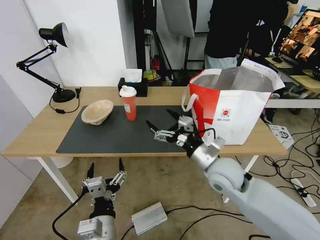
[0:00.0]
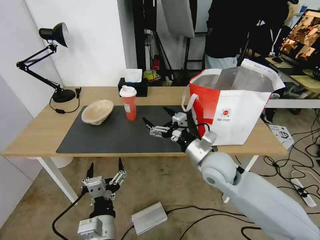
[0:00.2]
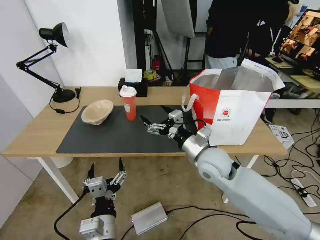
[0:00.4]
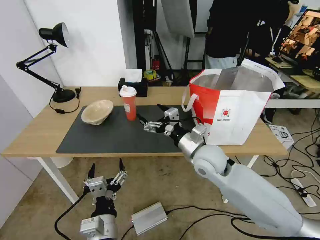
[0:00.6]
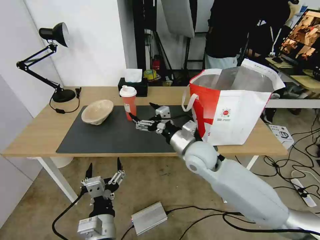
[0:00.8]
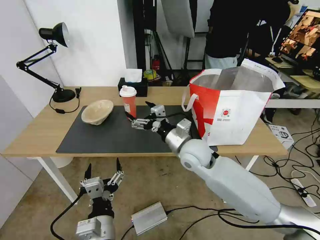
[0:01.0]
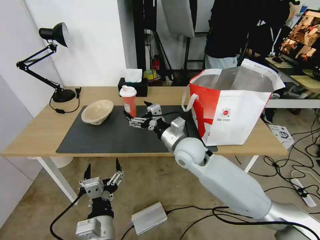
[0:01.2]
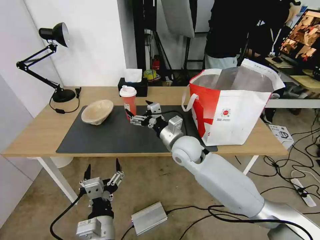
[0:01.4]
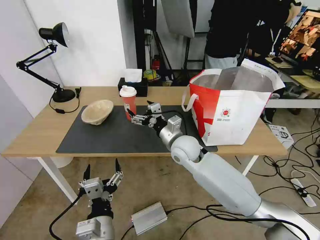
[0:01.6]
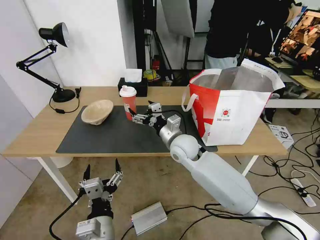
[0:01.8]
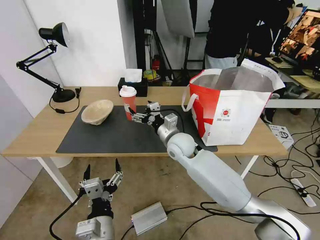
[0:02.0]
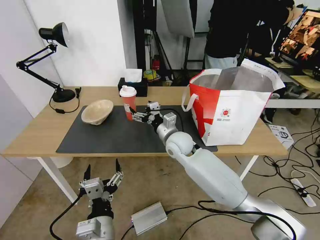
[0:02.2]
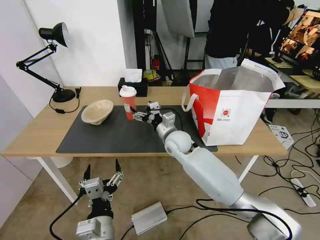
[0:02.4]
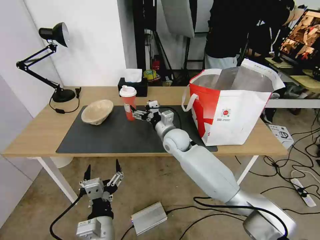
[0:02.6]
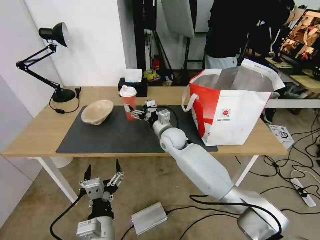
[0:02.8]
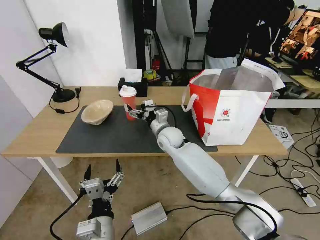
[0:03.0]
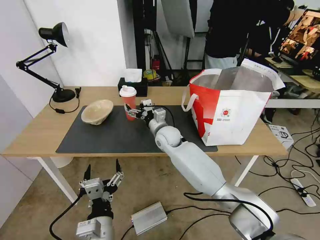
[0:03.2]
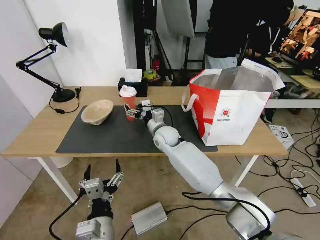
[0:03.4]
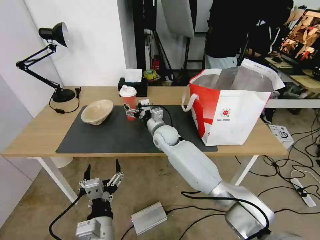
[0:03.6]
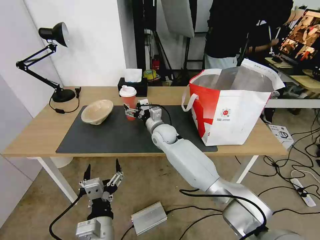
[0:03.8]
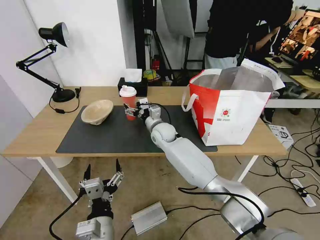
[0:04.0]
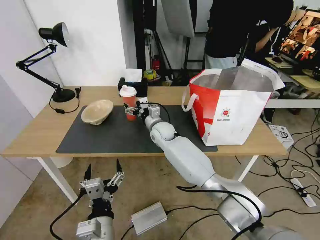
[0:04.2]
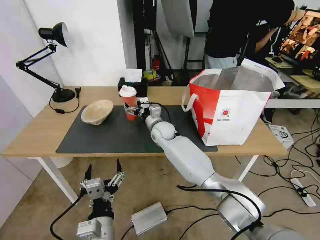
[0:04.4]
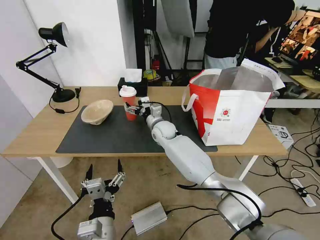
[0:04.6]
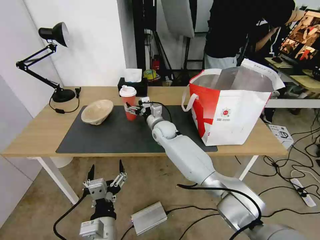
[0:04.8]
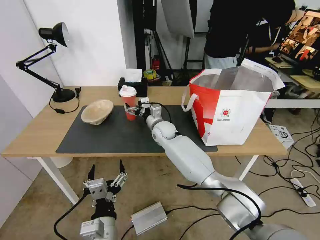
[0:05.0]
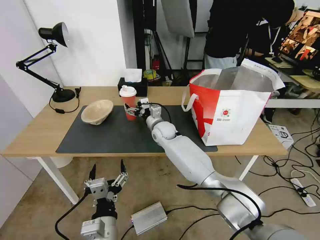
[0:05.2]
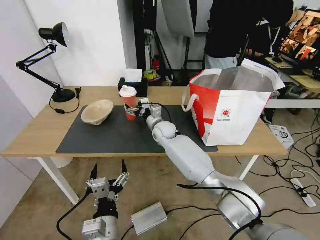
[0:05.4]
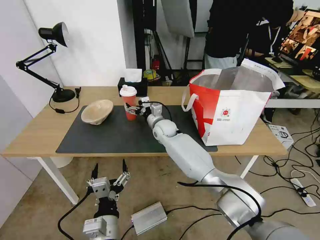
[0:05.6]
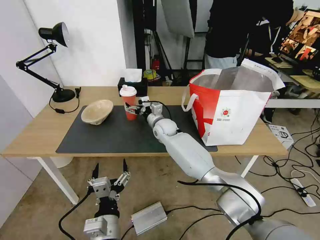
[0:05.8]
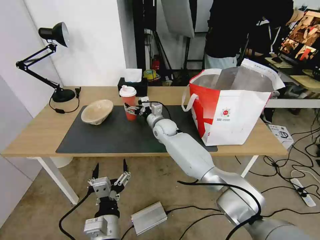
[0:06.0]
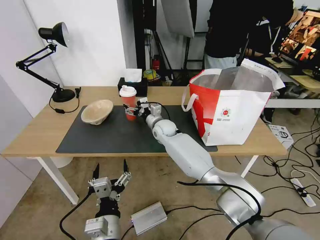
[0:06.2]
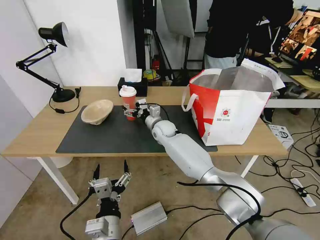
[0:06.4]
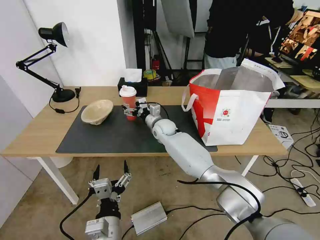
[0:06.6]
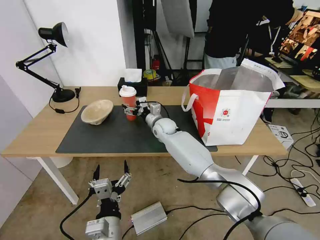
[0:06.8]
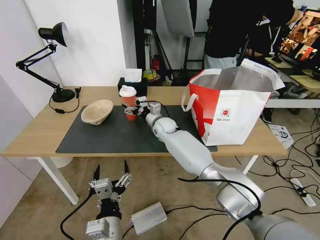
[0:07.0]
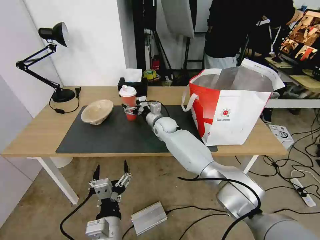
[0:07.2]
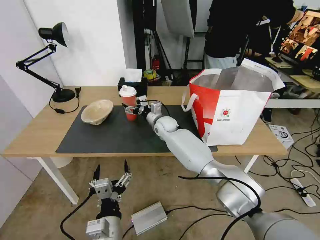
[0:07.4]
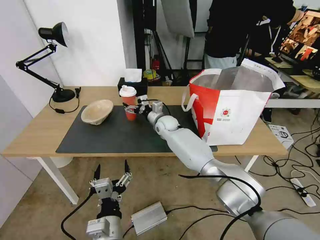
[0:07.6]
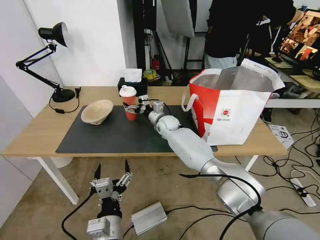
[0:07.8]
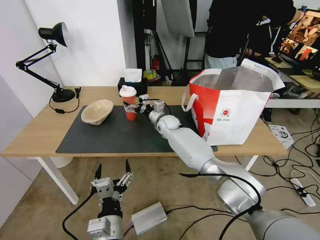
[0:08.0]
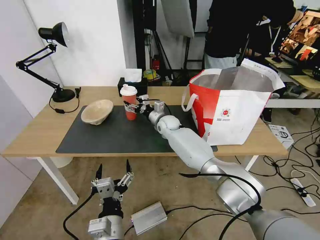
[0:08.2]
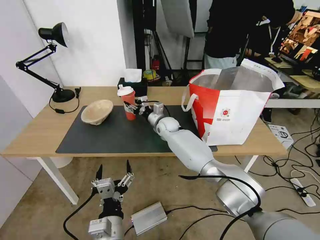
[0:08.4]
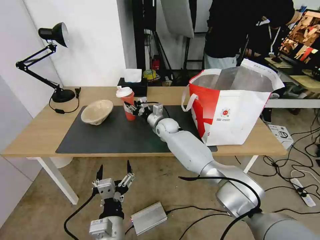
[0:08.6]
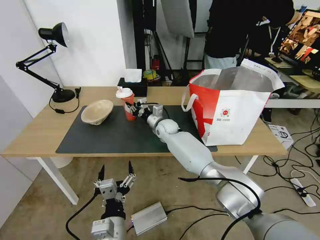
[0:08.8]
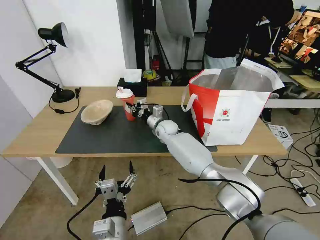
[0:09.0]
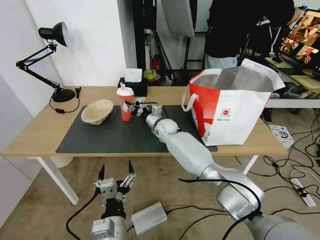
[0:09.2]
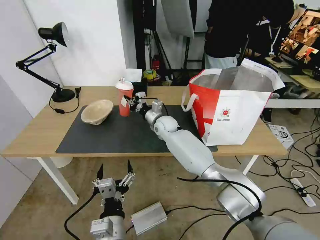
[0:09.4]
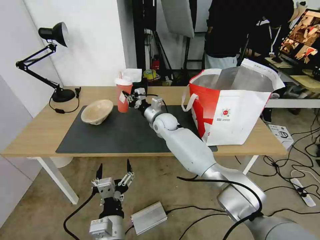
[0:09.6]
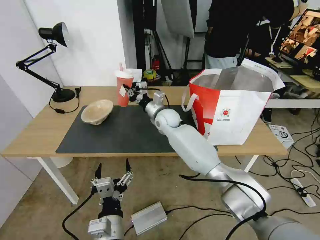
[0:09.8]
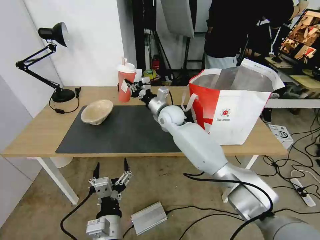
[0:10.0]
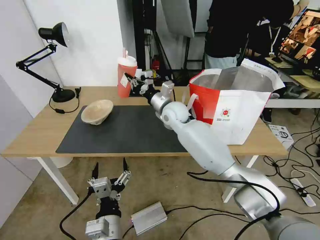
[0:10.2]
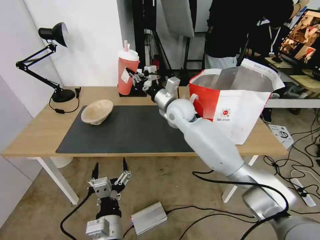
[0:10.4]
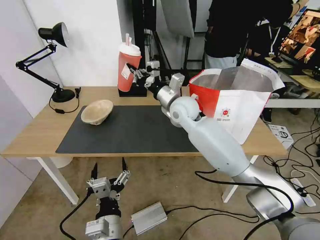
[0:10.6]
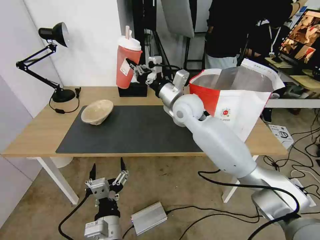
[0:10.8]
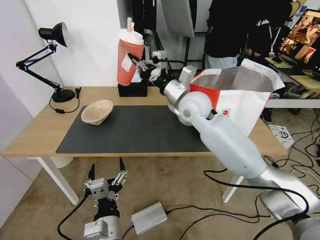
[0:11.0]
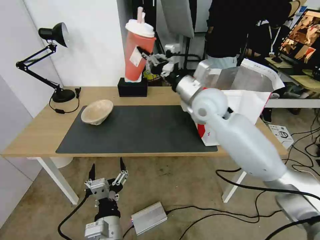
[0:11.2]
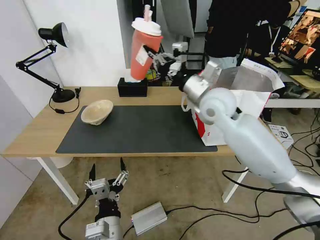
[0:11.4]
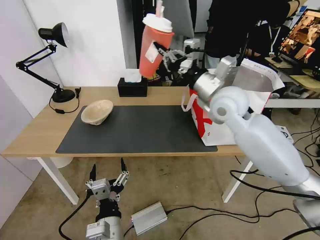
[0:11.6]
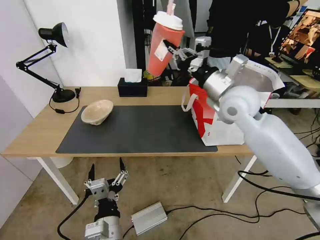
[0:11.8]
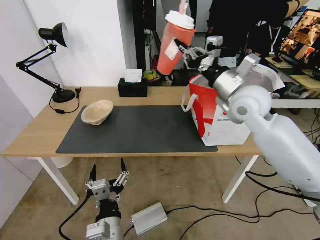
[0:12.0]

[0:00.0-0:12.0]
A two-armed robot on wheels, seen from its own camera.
Task of the whole recording: Pick up the trash from the table and place it into the takeout bag.
0:00.0 to 0:01.6: The right gripper heads to the left and forward, covering approximately 15 cm.
0:01.6 to 0:03.0: The right gripper goes roughly 10 cm forward.
0:03.0 to 0:04.4: The right gripper changes place by some 5 cm.
0:04.4 to 0:07.6: The grippers stay close to where they were, moving slightly.
0:07.6 to 0:09.0: The right gripper closes up.
0:09.0 to 0:10.4: The right gripper moves upward, some 15 cm.
0:10.4 to 0:12.0: The right gripper moves to the right, upward and backward, roughly 20 cm.

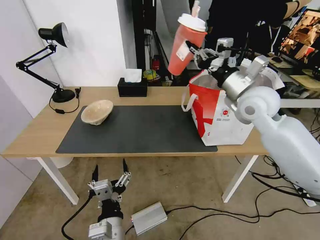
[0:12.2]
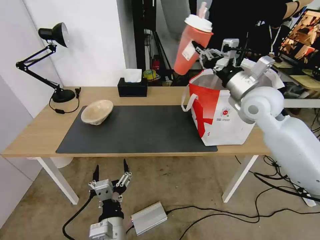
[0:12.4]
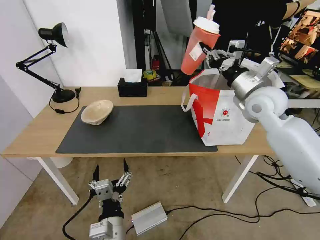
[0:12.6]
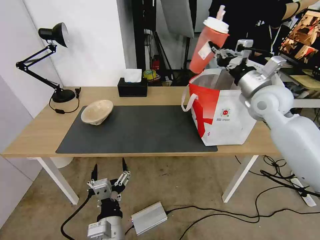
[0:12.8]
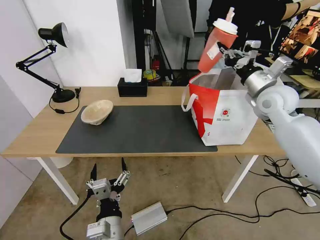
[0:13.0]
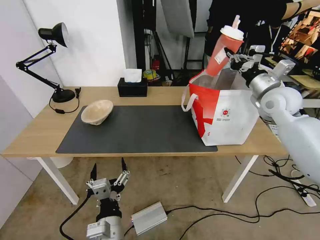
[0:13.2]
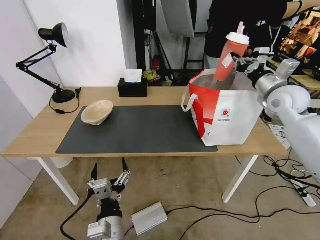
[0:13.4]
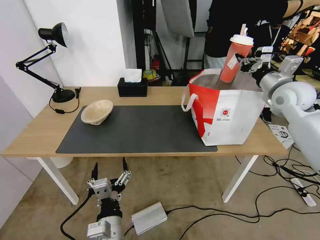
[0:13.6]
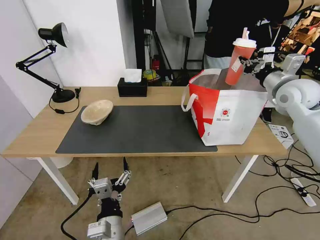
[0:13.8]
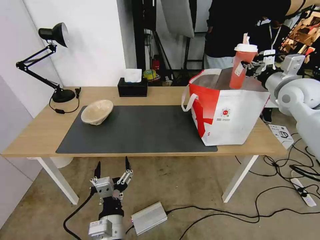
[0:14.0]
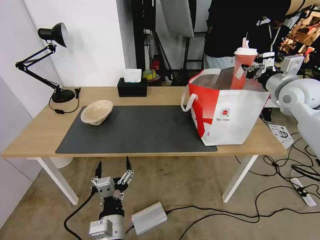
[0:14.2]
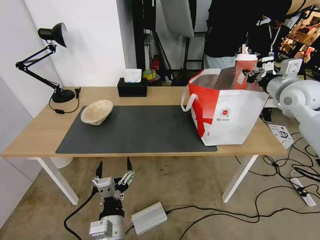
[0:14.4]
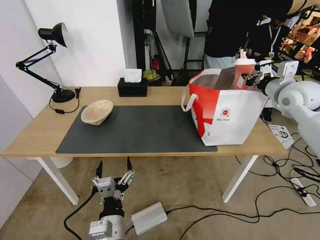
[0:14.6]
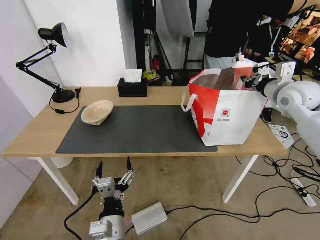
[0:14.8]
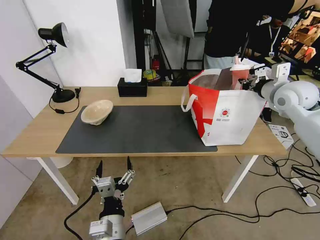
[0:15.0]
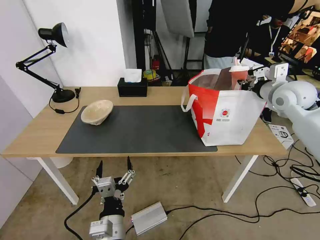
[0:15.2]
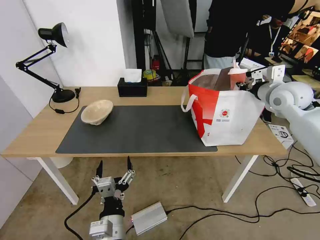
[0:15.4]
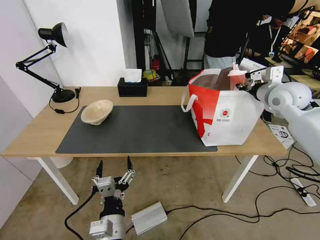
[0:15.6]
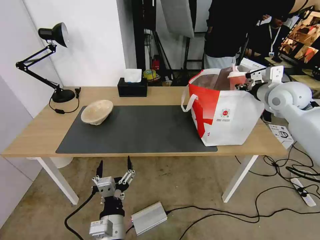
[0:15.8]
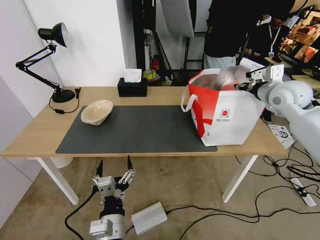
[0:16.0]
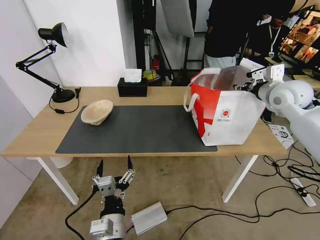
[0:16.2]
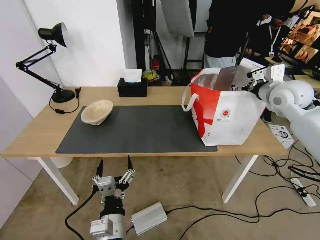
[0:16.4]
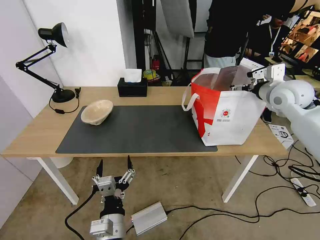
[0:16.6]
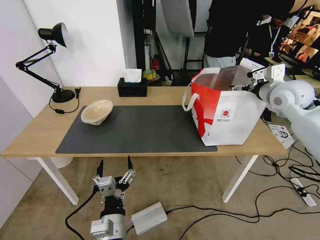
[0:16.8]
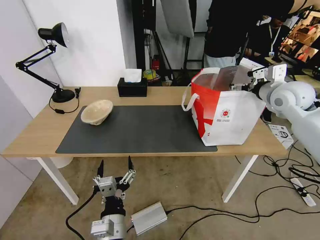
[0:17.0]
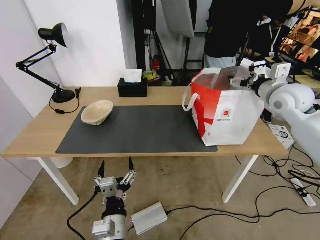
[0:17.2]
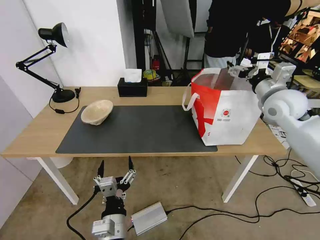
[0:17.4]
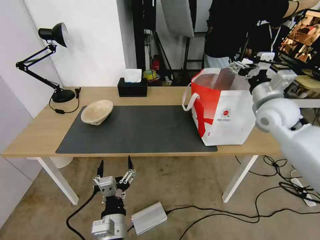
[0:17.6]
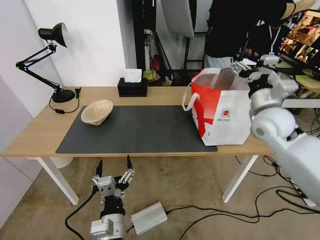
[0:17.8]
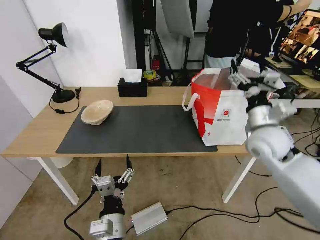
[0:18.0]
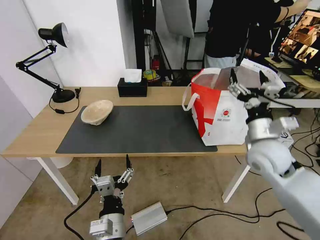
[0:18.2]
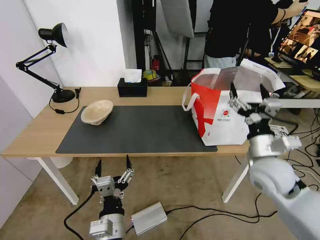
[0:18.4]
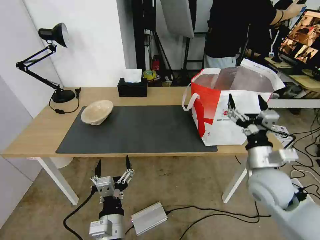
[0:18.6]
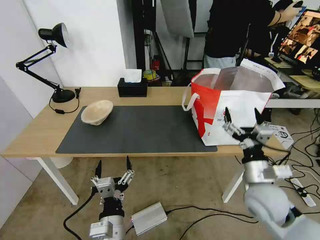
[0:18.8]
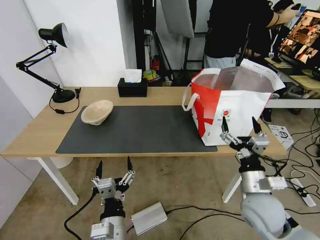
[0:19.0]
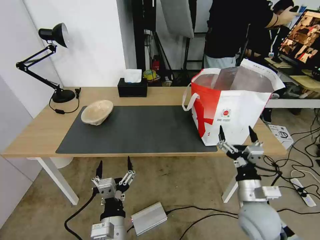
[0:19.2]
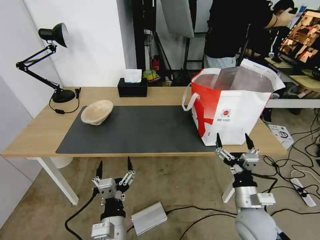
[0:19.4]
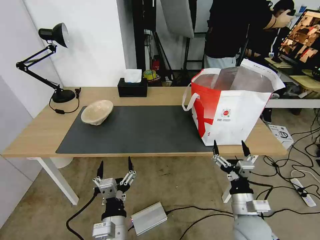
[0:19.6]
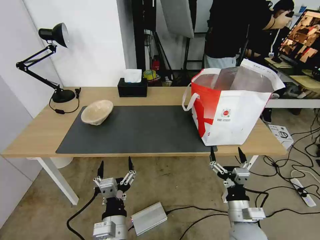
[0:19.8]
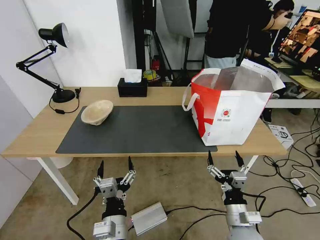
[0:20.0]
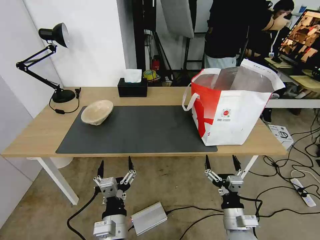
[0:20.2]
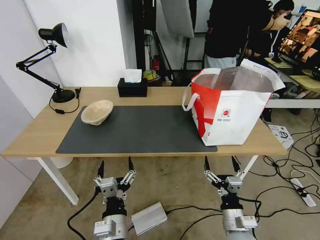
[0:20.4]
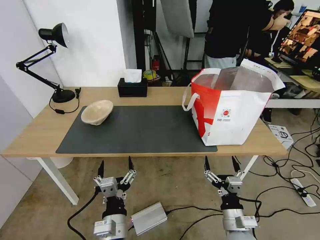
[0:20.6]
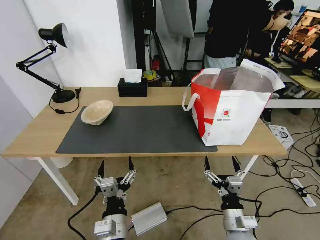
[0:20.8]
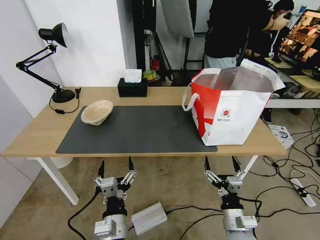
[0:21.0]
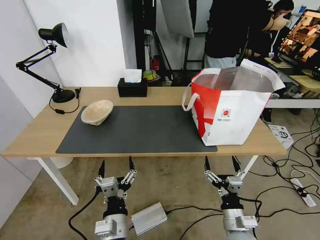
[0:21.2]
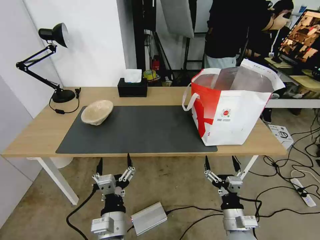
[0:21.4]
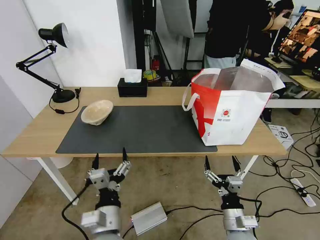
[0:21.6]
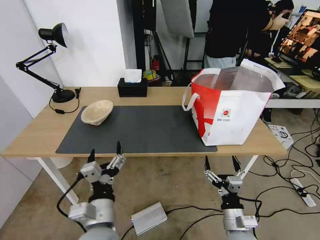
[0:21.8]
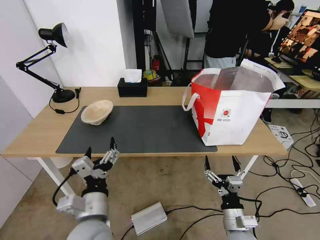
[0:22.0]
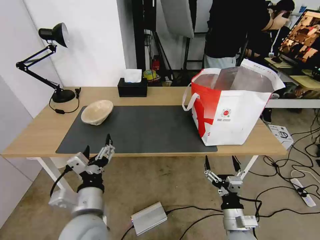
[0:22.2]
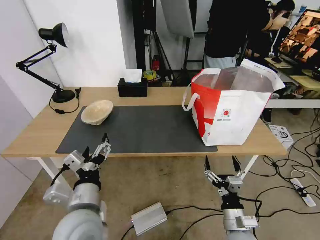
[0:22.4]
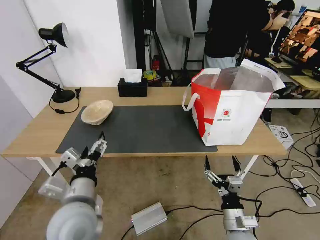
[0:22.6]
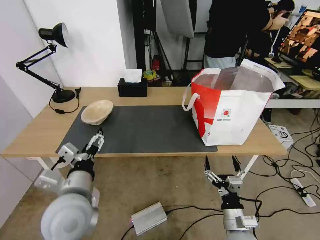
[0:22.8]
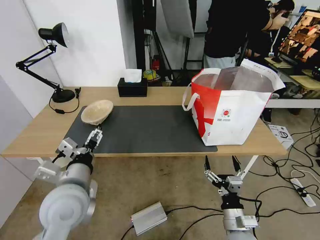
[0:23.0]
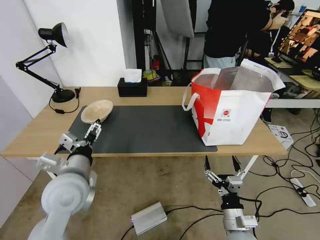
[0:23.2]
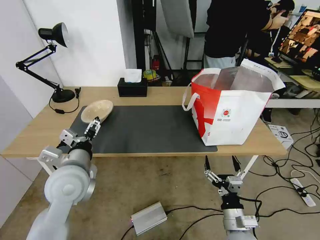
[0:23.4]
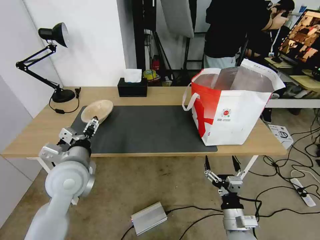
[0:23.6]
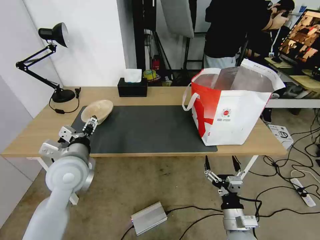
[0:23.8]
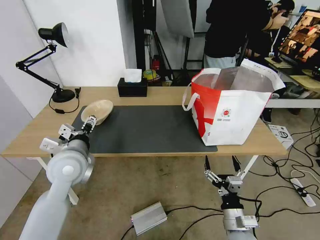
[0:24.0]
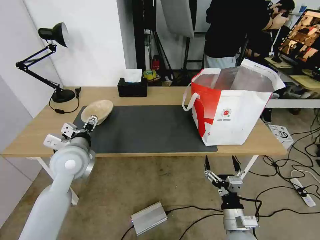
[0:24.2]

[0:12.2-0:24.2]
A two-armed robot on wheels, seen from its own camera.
Task of the whole recording: Pick up the trash from the table and place it into the takeout bag.
0:12.2 to 0:13.8: The right gripper shifts approximately 15 cm to the right.
0:15.2 to 0:16.6: The right gripper opens its fingers.
0:16.6 to 0:18.2: The right gripper is displaced backward, downward and to the left by roughly 20 cm.
0:18.2 to 0:19.8: The right gripper is displaced downward and backward by some 25 cm.
0:19.8 to 0:21.2: The grippers move only a little.
0:21.2 to 0:22.6: The left gripper heads upward, to the left and forward, covering some 15 cm.
0:22.6 to 0:24.2: The left gripper is displaced forward by roughly 15 cm.
